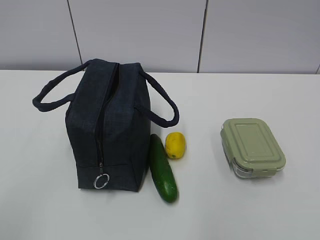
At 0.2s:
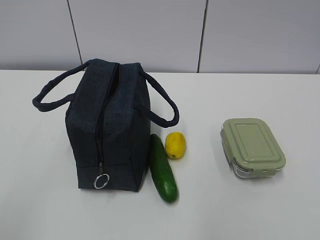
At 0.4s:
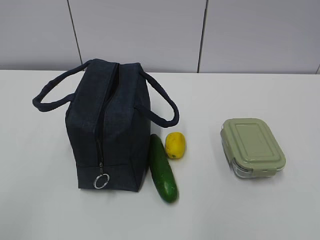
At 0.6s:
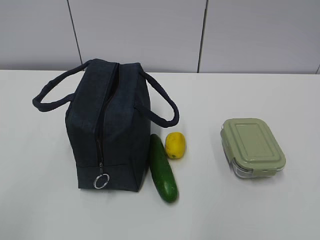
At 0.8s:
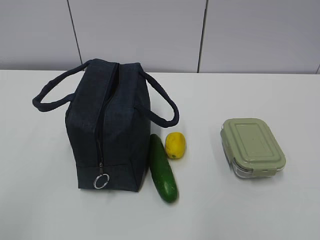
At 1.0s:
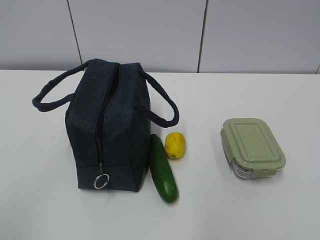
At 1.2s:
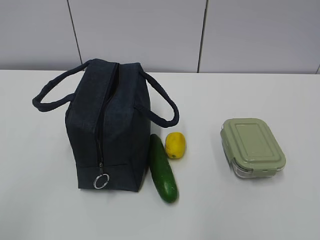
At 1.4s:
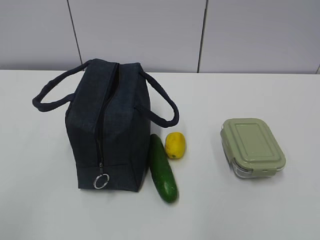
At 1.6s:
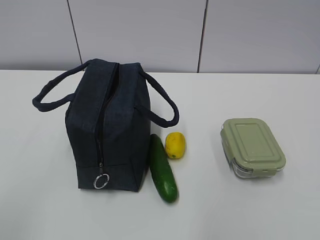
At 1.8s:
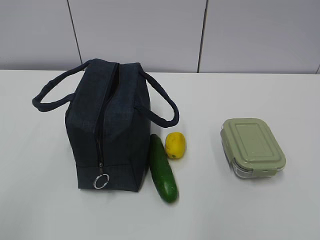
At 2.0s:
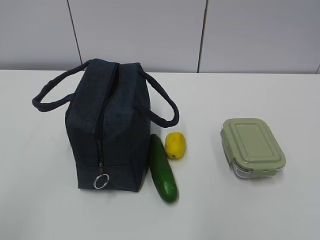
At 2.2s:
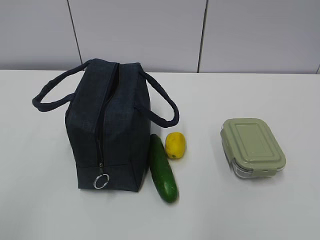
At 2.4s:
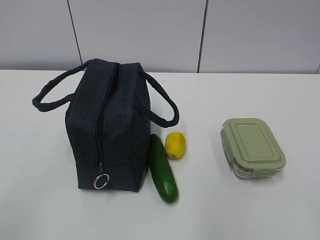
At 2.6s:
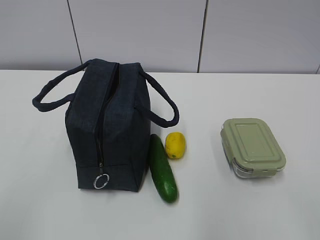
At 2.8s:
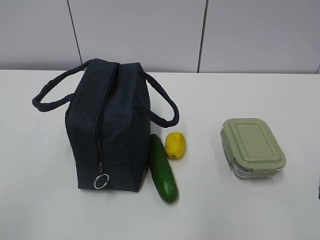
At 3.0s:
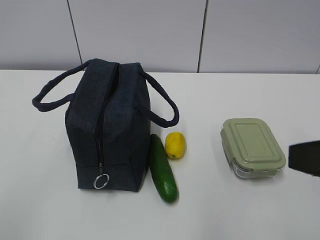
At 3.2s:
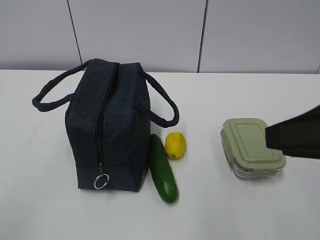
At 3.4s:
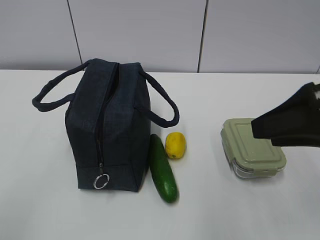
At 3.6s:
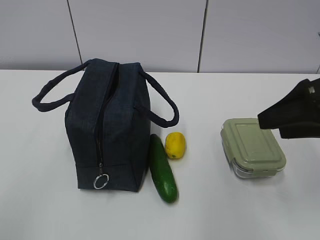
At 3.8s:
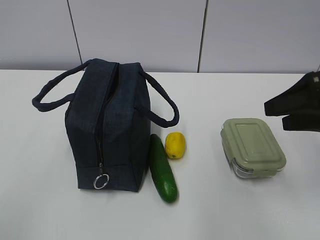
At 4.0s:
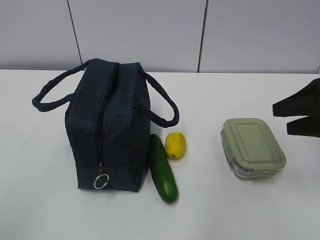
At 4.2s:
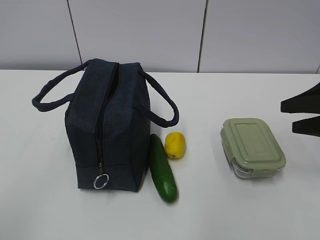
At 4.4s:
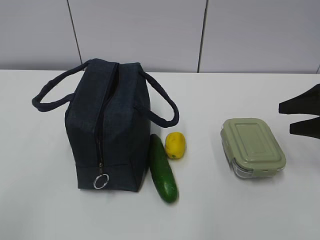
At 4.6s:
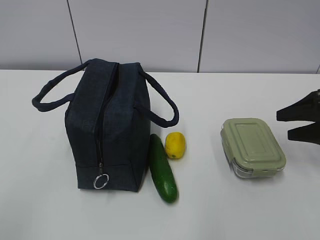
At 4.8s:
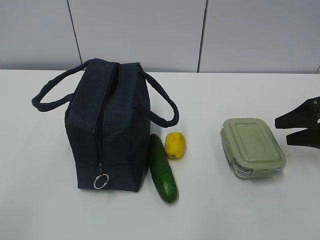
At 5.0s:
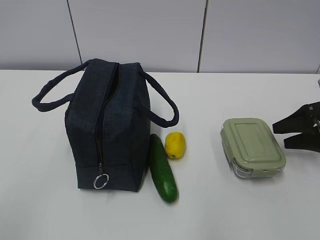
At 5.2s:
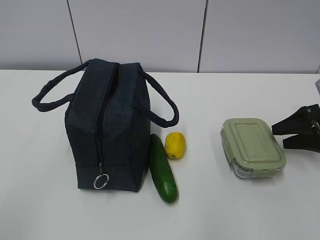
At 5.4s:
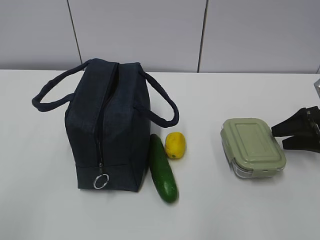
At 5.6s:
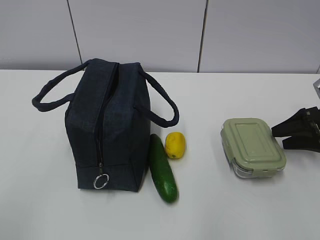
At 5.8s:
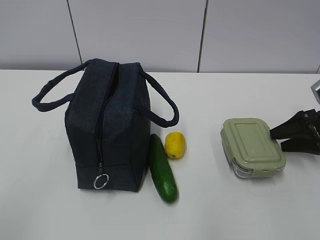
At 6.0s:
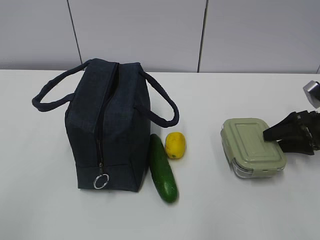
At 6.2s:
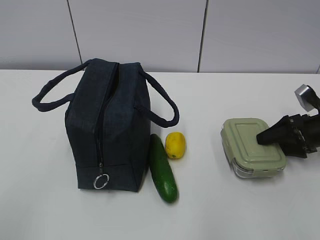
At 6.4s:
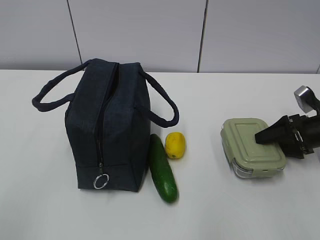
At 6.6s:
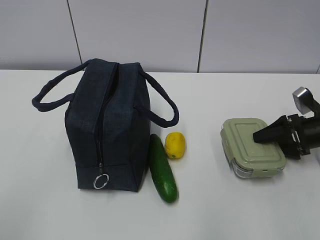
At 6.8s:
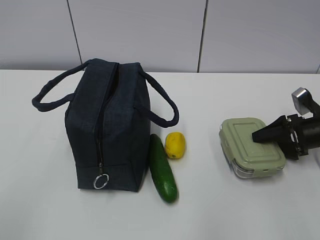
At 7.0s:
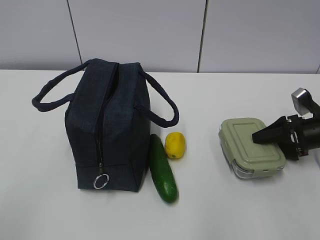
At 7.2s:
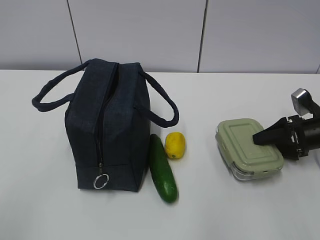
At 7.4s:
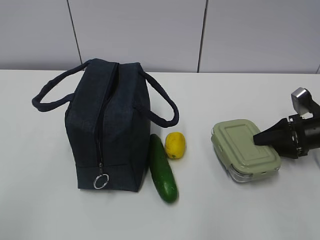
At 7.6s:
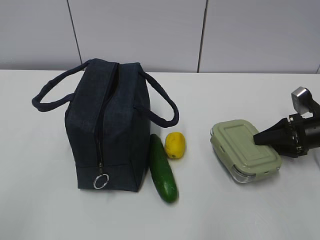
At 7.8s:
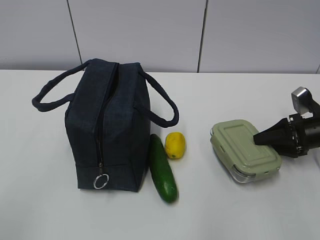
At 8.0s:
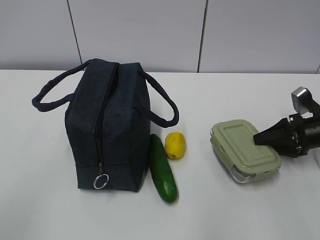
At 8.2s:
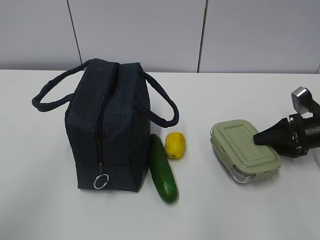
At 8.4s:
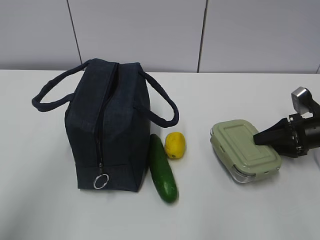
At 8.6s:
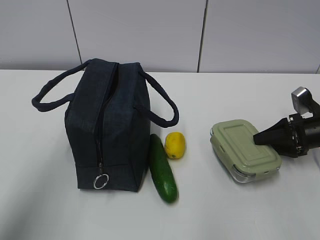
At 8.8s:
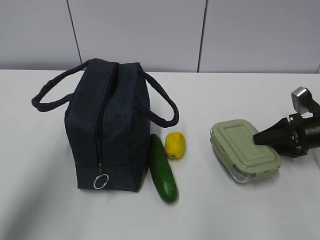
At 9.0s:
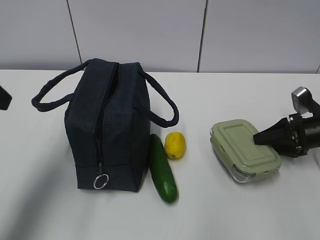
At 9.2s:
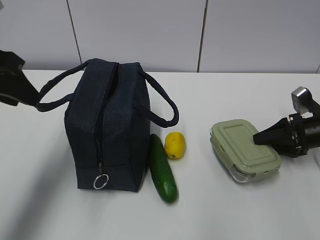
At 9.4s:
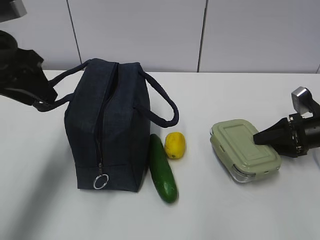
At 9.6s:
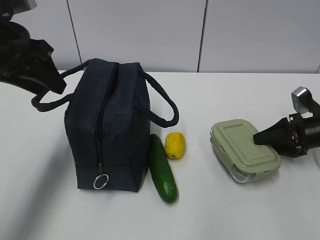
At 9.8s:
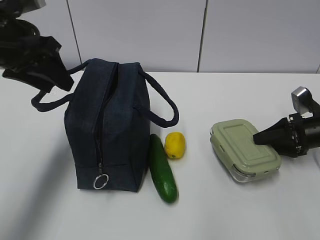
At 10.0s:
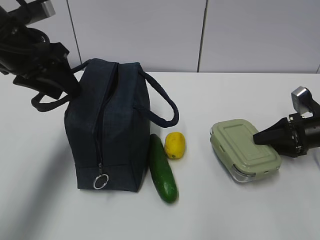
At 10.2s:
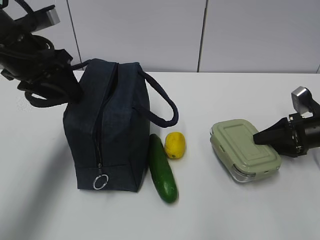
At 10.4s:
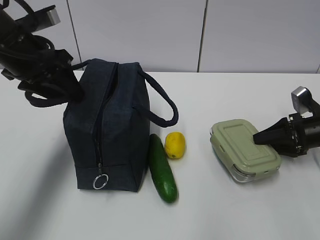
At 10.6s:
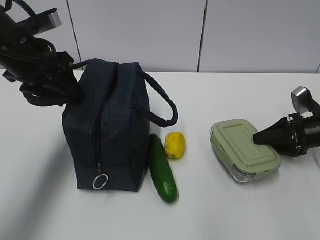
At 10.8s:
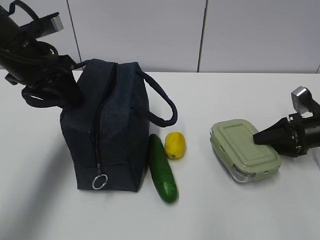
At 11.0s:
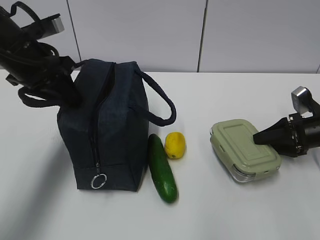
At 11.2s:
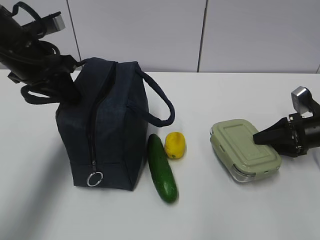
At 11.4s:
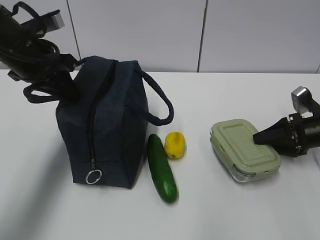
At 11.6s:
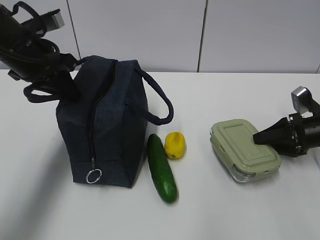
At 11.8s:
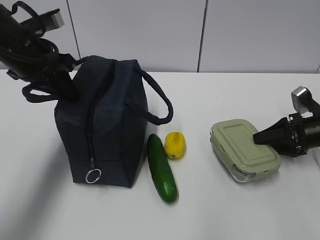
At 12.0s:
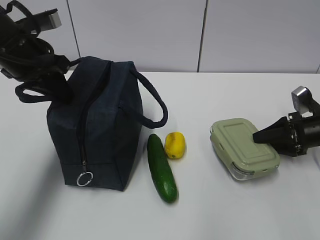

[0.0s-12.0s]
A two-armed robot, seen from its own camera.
Step, 0.0s to 9.6s: Grab the lunch box with your right hand.
1.6s to 3.0s: The right gripper heads forward and to the left, covering roughly 15 cm.
3.0s to 4.4s: The right gripper travels forward, to the right and downward by roughly 25 cm, and opens up.
4.4s to 6.0s: The right gripper heads downward and forward, covering approximately 10 cm.
6.0s to 7.6s: The grippers make only small movements.
7.6s to 9.0s: The left gripper travels forward by approximately 25 cm.
9.0s to 10.4s: The left gripper is displaced forward and downward by about 15 cm.
10.4s to 12.0s: The left gripper closes its fingers.

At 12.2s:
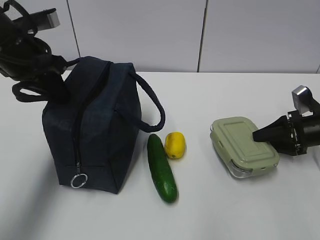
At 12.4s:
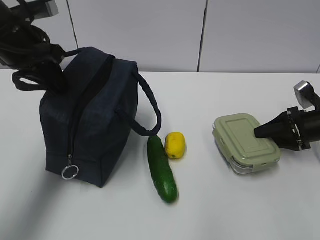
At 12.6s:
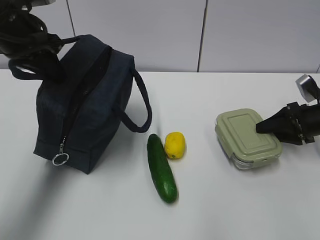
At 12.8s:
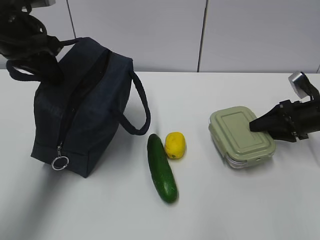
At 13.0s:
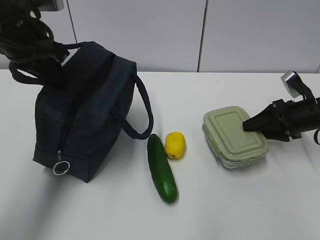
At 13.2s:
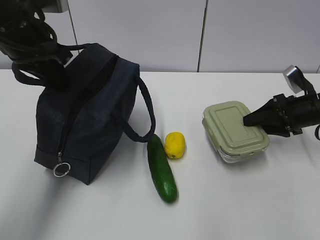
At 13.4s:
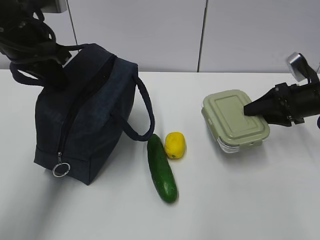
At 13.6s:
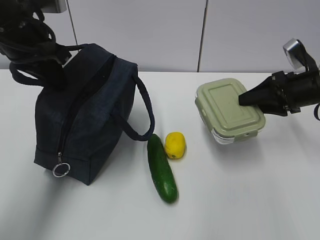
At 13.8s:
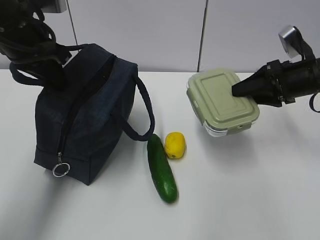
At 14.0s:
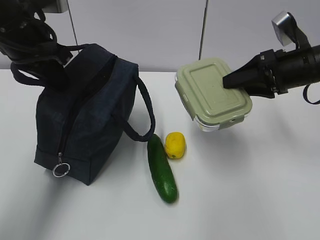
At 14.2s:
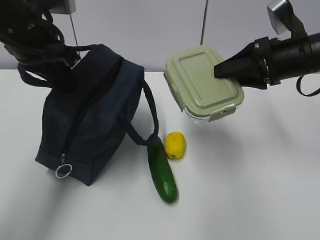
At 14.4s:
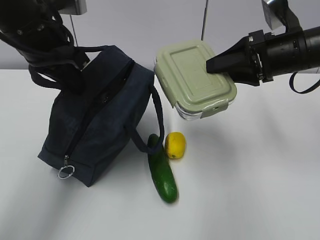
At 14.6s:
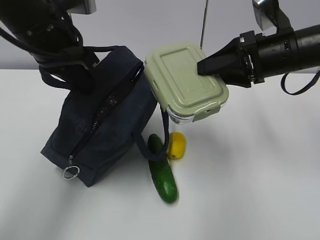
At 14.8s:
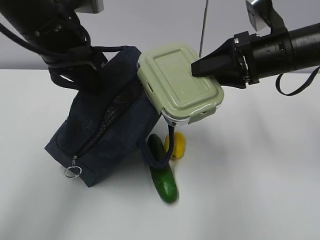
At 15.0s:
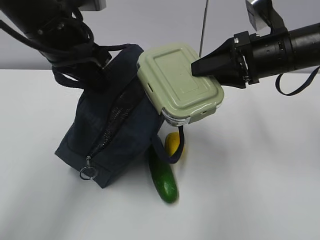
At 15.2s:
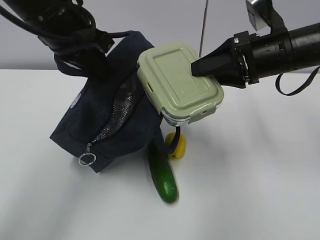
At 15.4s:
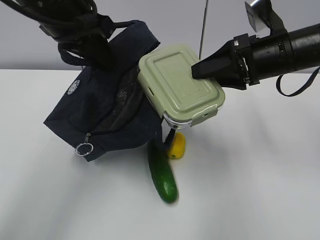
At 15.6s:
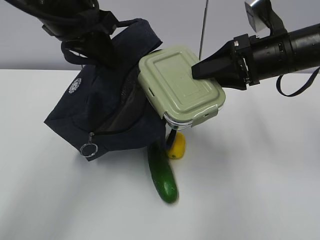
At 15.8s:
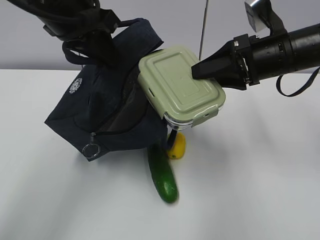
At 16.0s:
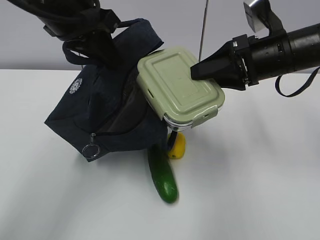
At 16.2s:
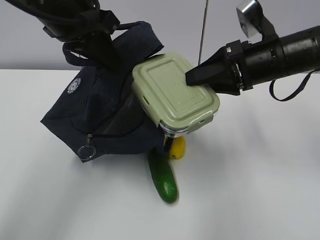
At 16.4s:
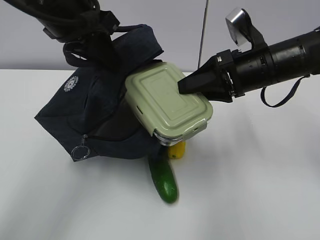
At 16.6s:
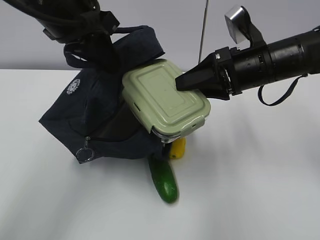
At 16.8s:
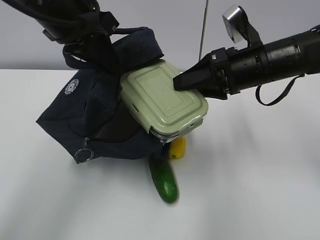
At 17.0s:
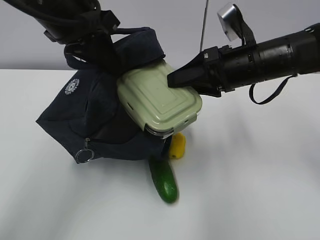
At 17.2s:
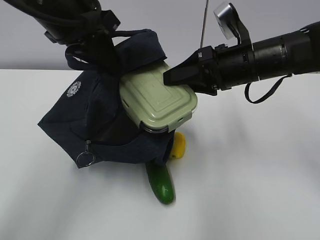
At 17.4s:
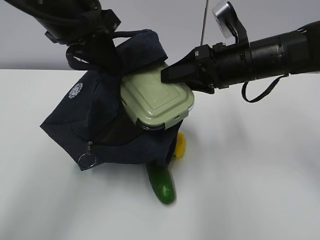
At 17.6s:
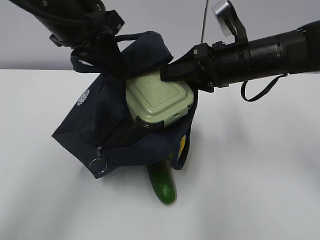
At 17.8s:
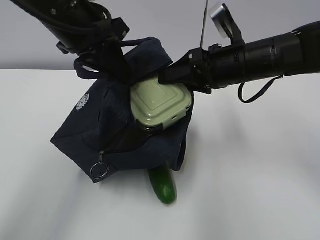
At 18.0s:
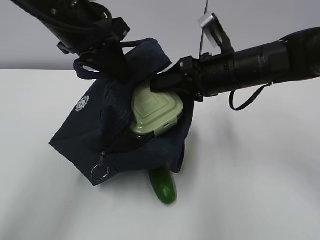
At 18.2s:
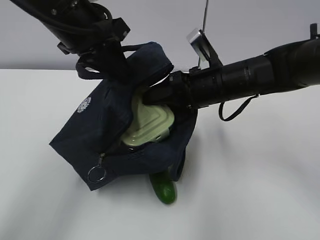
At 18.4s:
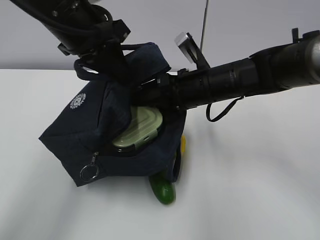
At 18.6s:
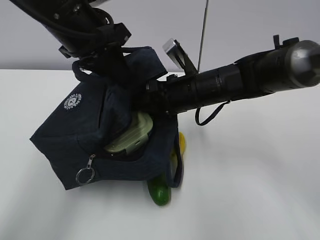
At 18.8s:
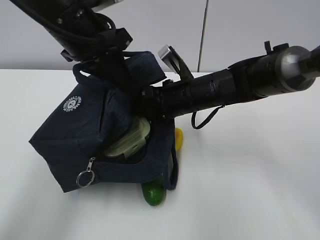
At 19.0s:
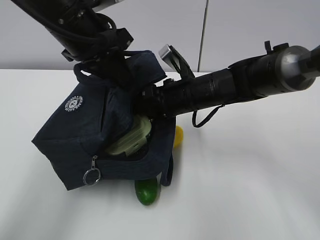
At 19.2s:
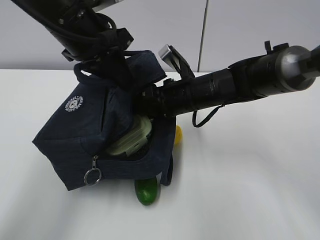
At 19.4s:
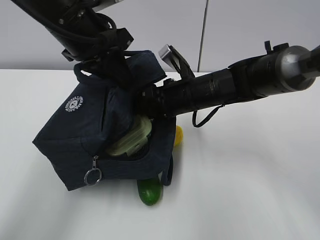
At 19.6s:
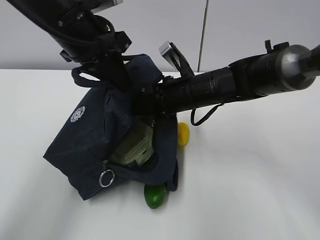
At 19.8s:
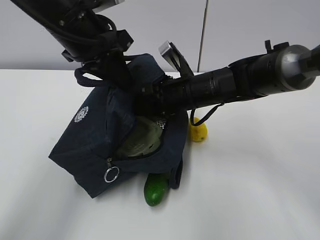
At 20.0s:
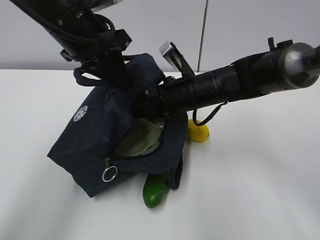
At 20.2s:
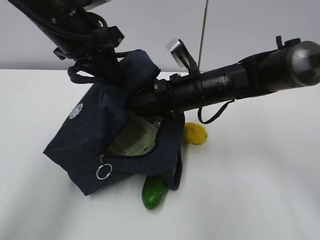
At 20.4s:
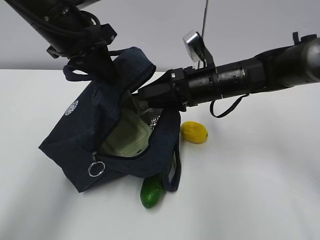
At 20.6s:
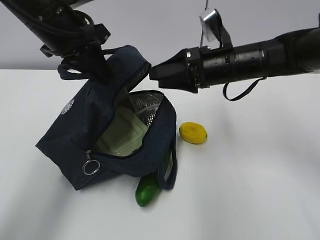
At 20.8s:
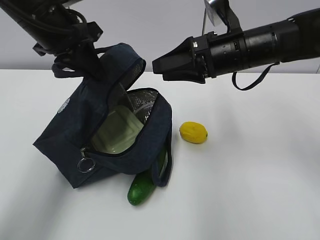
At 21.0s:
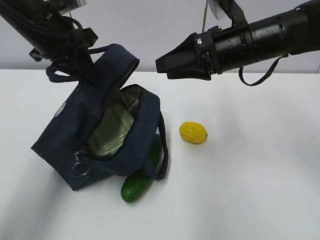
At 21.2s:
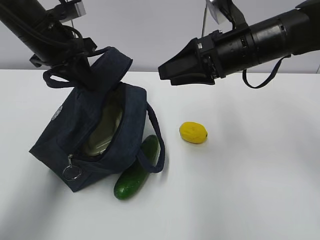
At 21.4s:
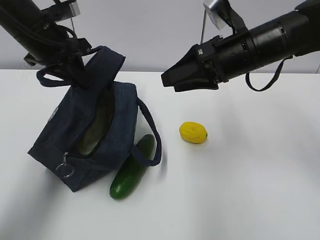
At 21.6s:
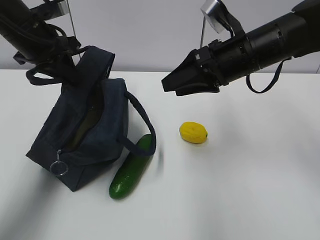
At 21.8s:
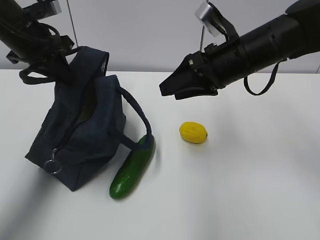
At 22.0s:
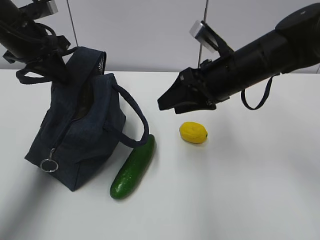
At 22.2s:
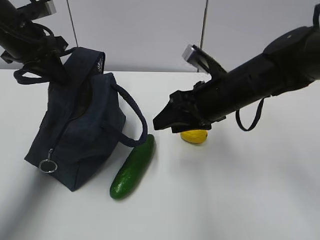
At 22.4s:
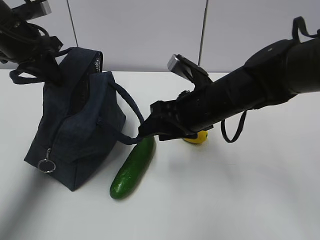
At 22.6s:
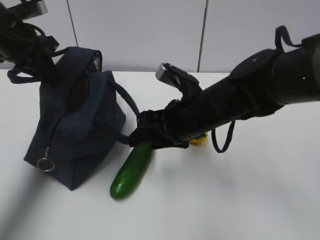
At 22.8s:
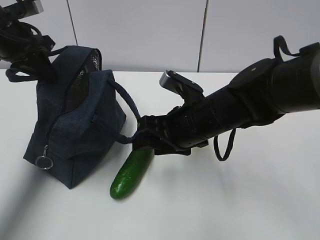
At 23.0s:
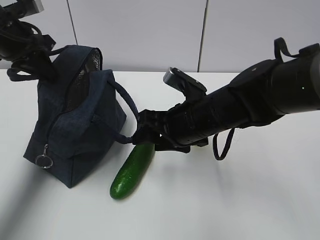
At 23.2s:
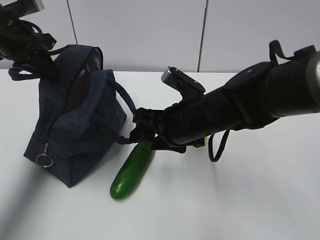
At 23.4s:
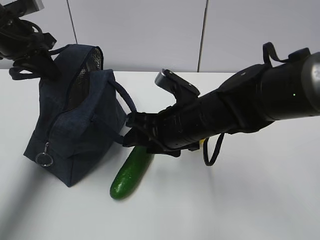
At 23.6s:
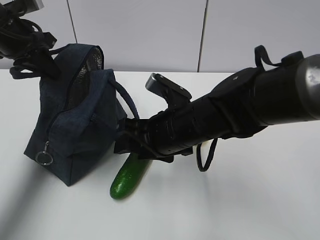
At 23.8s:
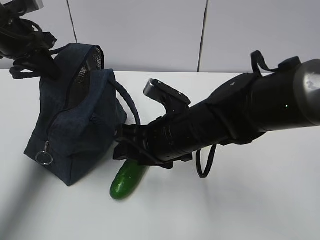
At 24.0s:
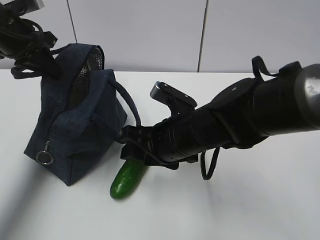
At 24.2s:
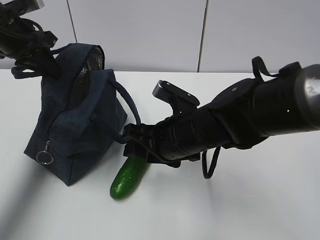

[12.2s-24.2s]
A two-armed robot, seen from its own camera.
Step, 13.0s to 16.4s: Place it into the bag with your right hand.
Step, 16.6s to 21.0s: Grab the cucumber with your right hand.
12.2s to 13.8s: The right gripper heads upward and to the left, covering roughly 15 cm.
13.8s to 15.2s: The right gripper travels to the left and upward by some 10 cm. Meanwhile the left gripper shifts roughly 5 cm to the right.
15.2s to 16.6s: The grippers move only a little.
16.6s to 18.2s: The right gripper is displaced to the left by roughly 5 cm.
18.2s to 19.8s: The right gripper changes place by roughly 5 cm.
19.8s to 21.2s: The right gripper heads upward and to the right, covering approximately 10 cm. The left gripper is displaced to the left by about 5 cm.
21.2s to 22.6s: The left gripper shifts roughly 5 cm to the left. Meanwhile the right gripper is displaced downward and to the left by some 10 cm.
22.6s to 24.2s: The grippers move only a little.
